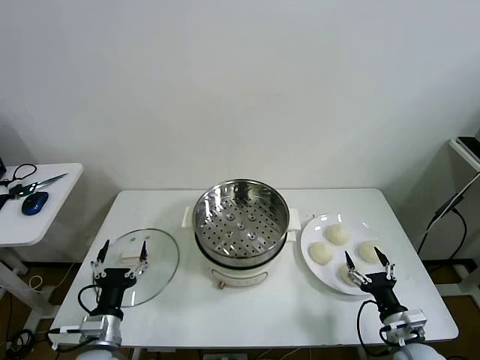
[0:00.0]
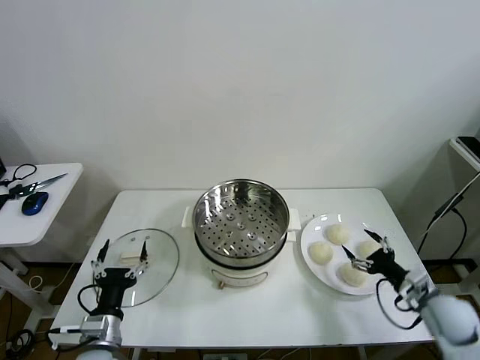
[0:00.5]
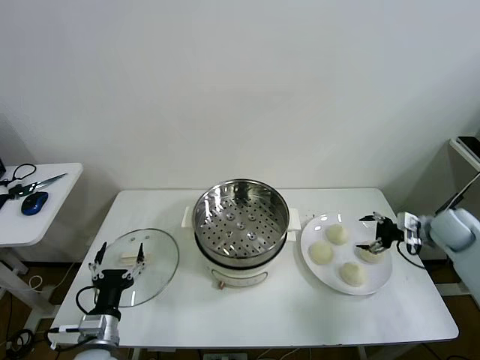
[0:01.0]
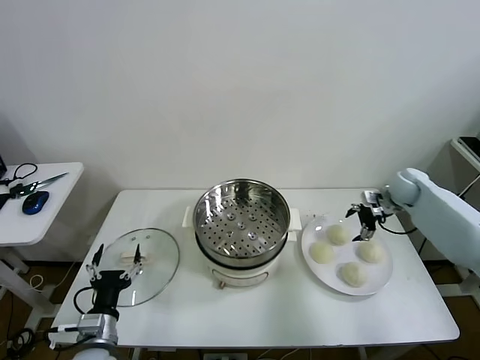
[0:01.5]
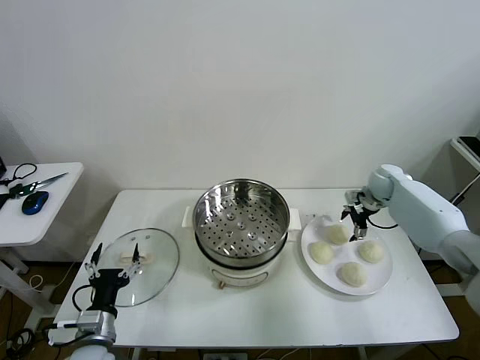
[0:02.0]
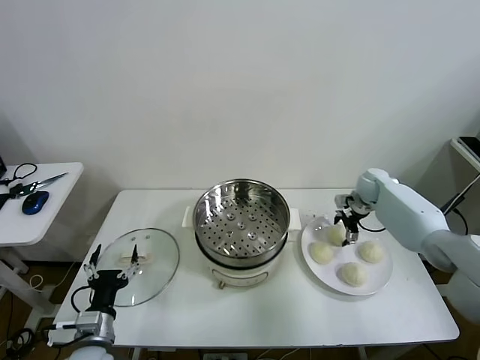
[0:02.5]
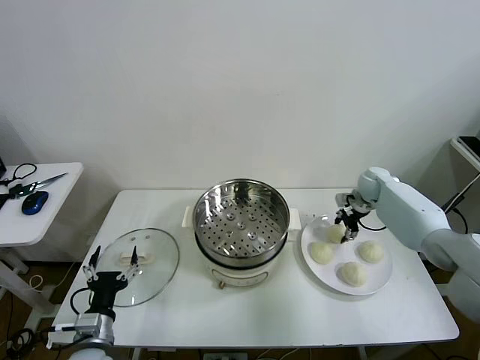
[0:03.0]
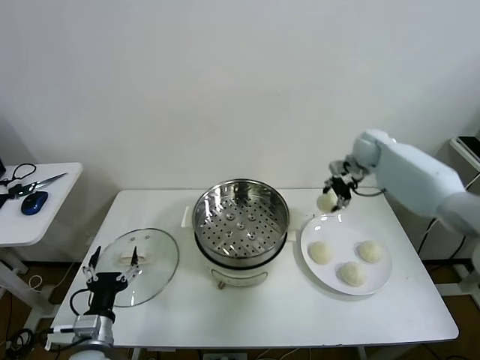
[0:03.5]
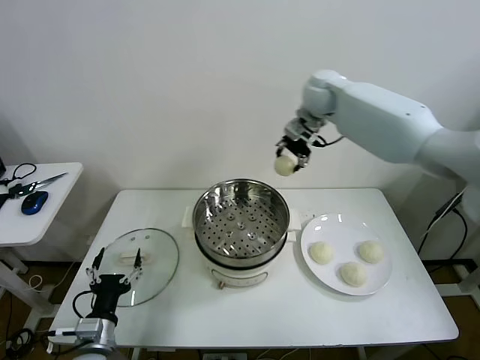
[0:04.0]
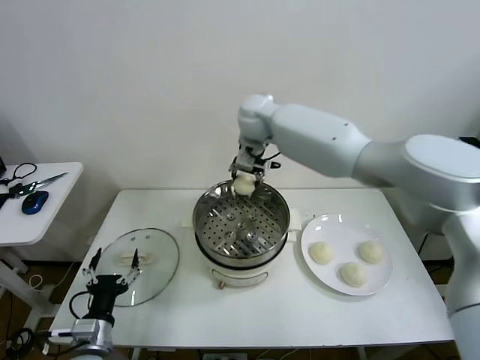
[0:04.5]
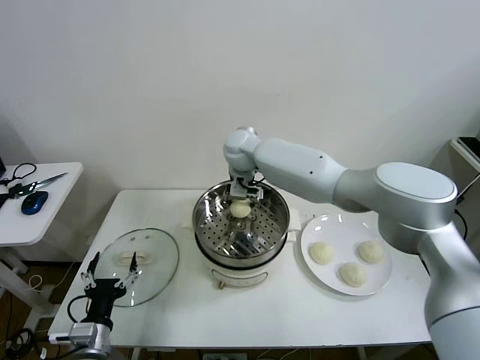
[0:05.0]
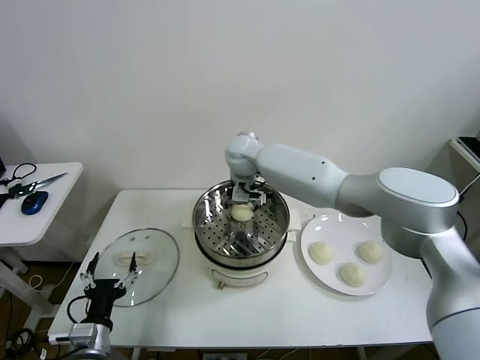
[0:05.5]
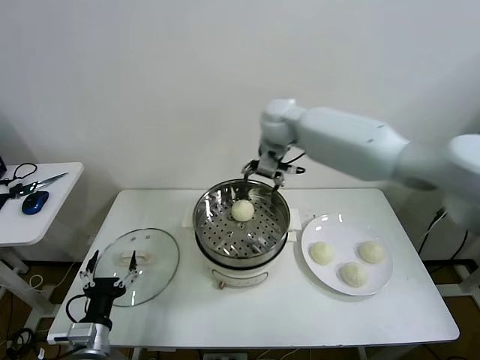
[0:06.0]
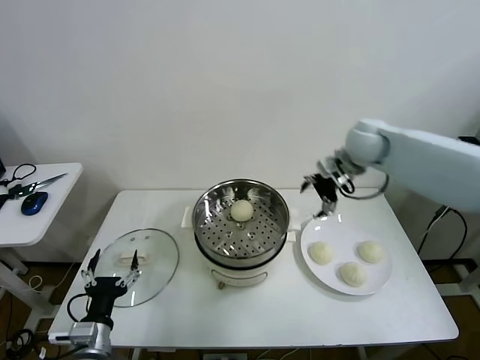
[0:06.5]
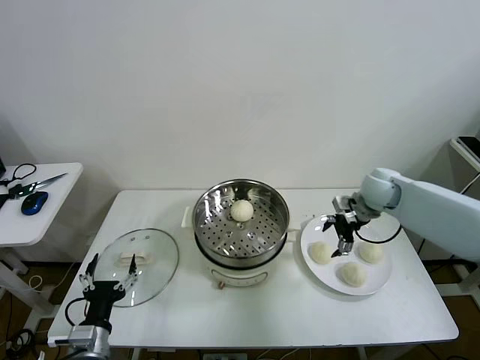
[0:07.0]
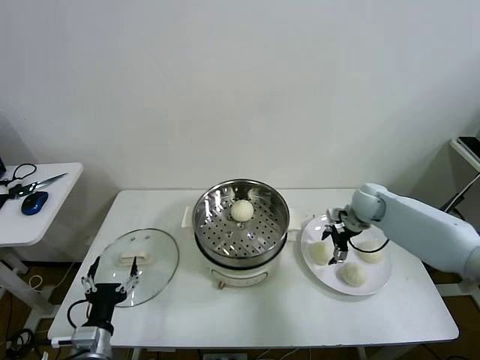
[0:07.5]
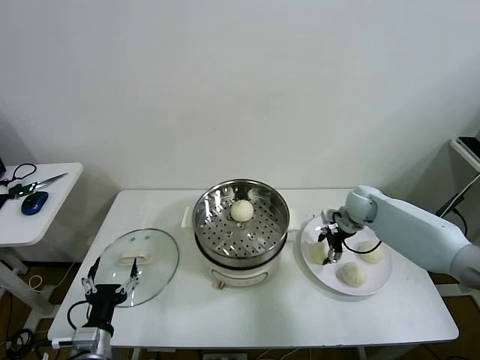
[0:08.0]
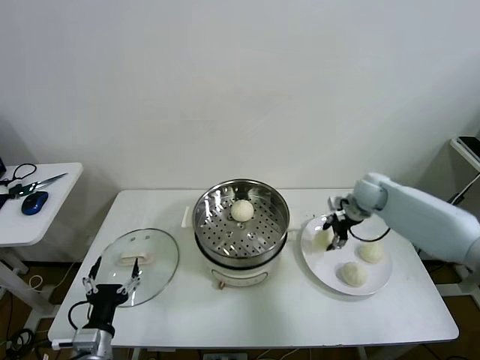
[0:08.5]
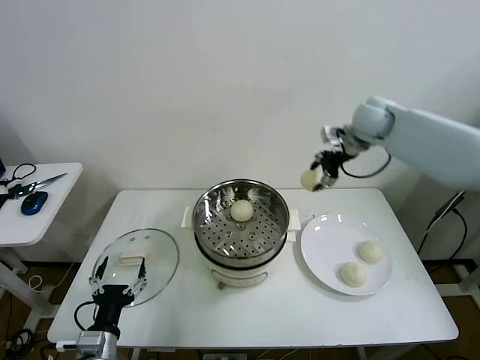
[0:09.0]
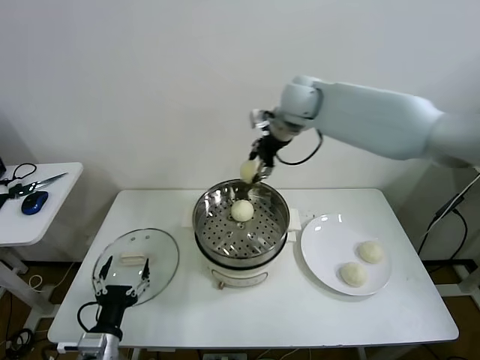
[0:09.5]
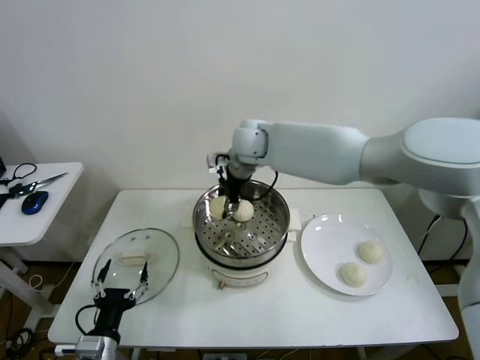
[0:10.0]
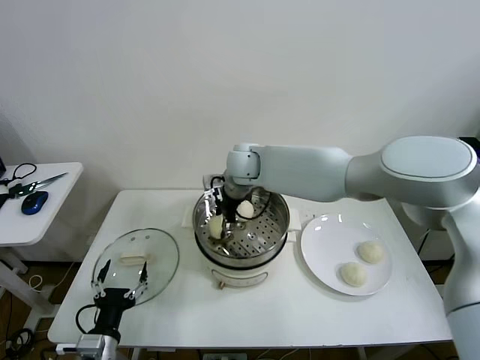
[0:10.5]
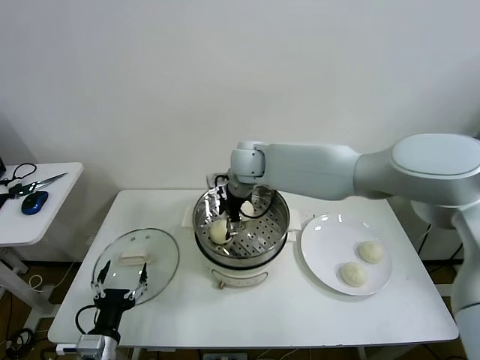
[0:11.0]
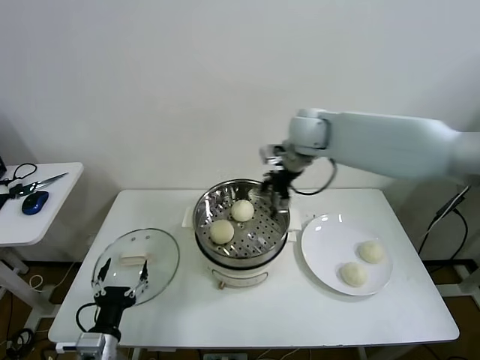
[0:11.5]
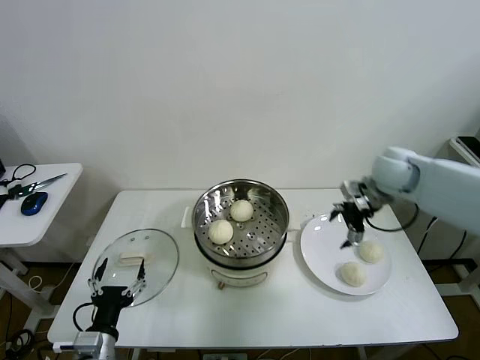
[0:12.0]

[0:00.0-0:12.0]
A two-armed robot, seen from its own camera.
Task of the whole recording: take steamed baozi put them in steamer then cover it.
Step, 0:00.0 to 0:02.5: Grasp the baozi in the plate with right gripper.
Step, 0:03.0 to 0:05.5: Place the baozi on the steamer with right gripper.
Step, 0:06.0 to 0:08.0: Grasp the baozi in the plate with right gripper.
Step, 0:08.5 to 0:11.0: Place the baozi on the steamer with right gripper.
0:02.0 to 0:04.0: The right gripper heads upward and to the left, covering about 35 cm, and closes.
0:04.0 to 0:06.0: The right gripper travels downward and back again, some 15 cm each way, and opens its fingers.
0:06.0 to 0:08.0: The right gripper goes about 30 cm downward and to the right, and closes.
0:08.0 to 0:10.0: The right gripper shifts approximately 35 cm to the left and upward.
0:10.0 to 0:12.0: The right gripper moves to the right, some 35 cm, and opens.

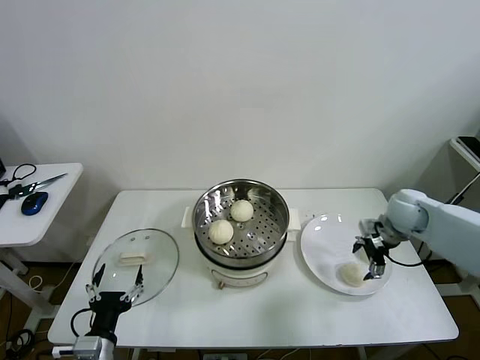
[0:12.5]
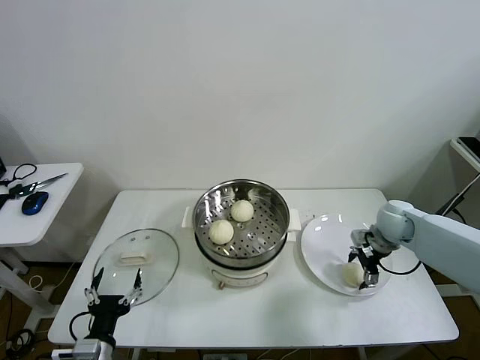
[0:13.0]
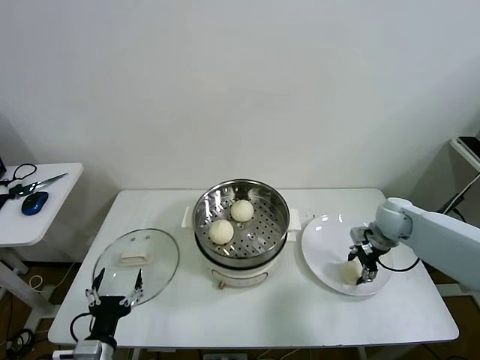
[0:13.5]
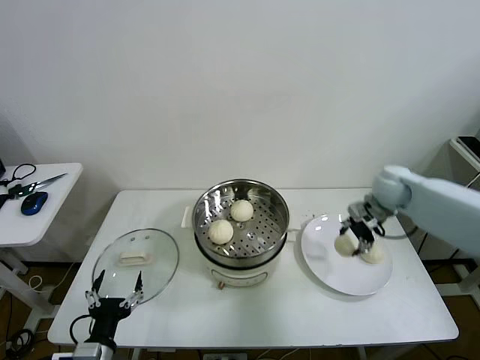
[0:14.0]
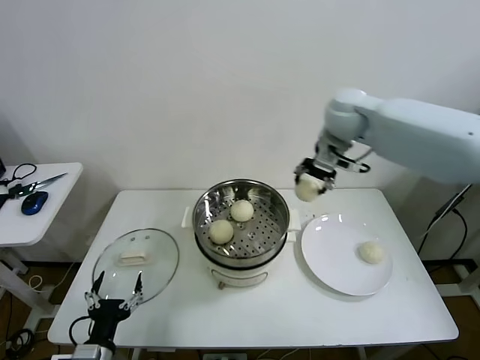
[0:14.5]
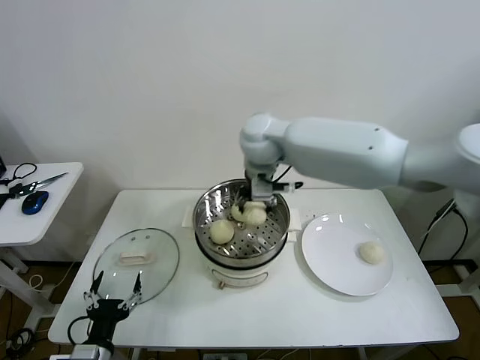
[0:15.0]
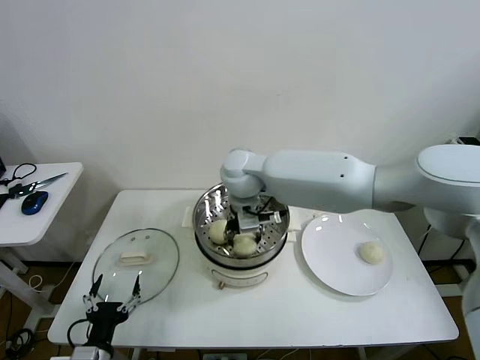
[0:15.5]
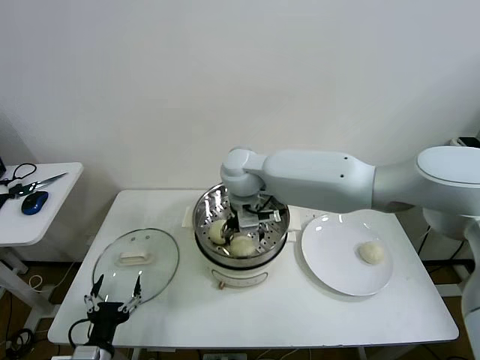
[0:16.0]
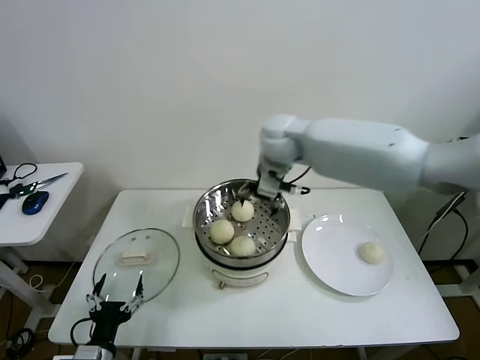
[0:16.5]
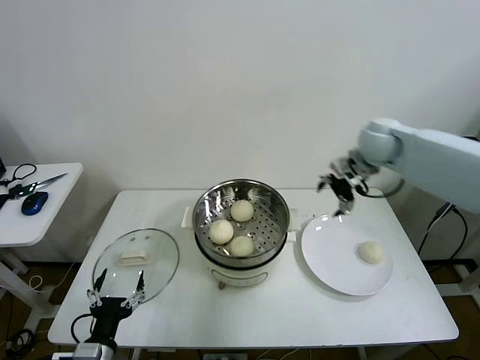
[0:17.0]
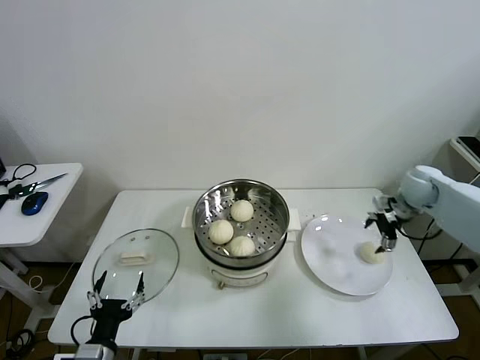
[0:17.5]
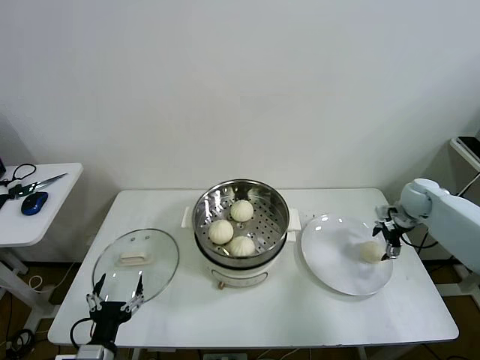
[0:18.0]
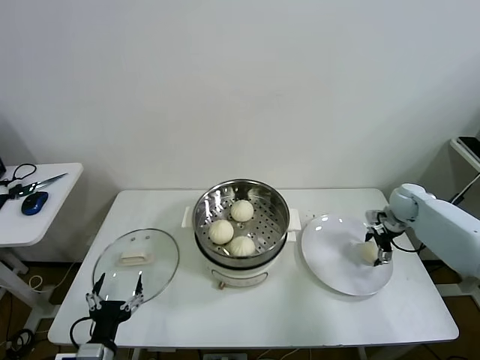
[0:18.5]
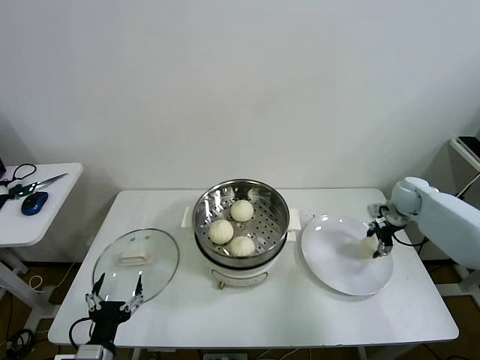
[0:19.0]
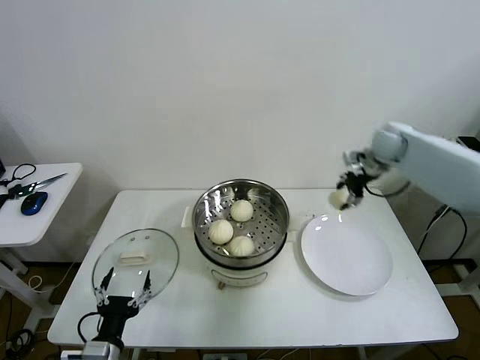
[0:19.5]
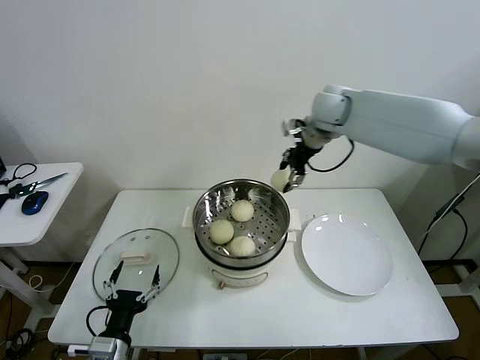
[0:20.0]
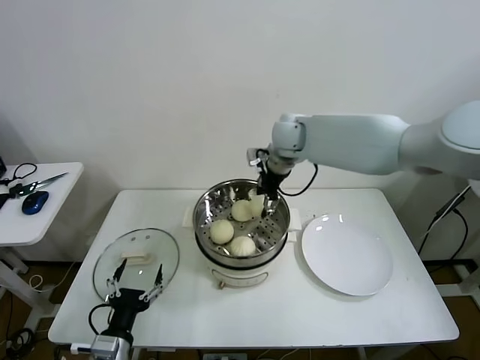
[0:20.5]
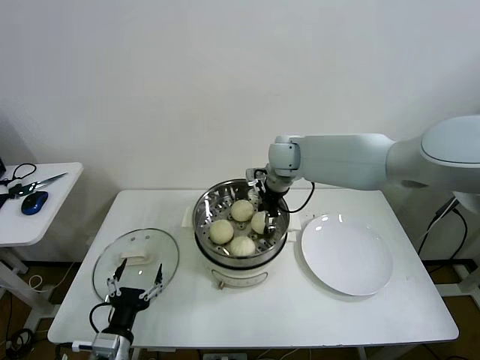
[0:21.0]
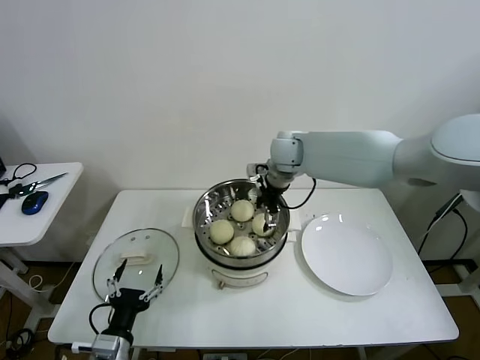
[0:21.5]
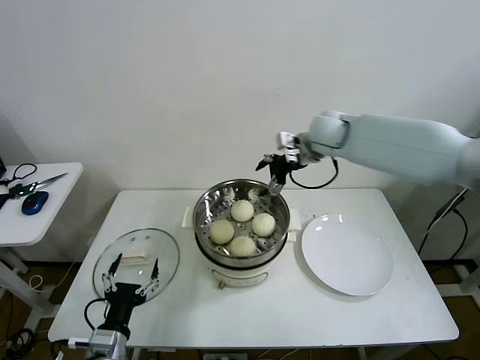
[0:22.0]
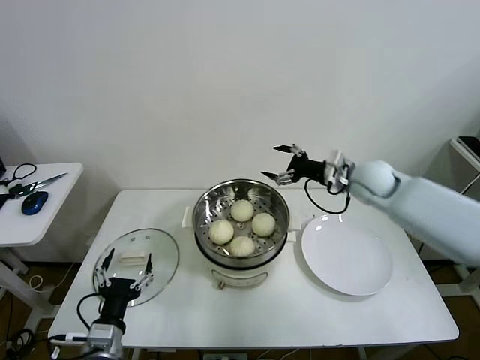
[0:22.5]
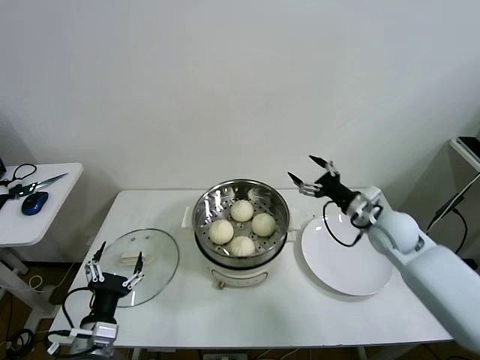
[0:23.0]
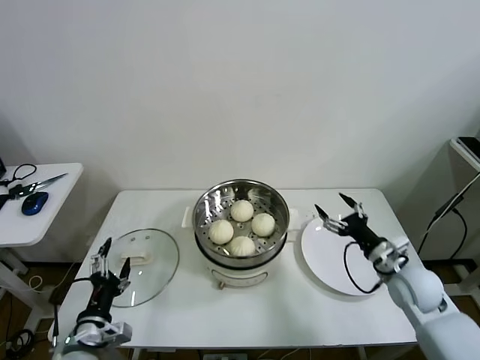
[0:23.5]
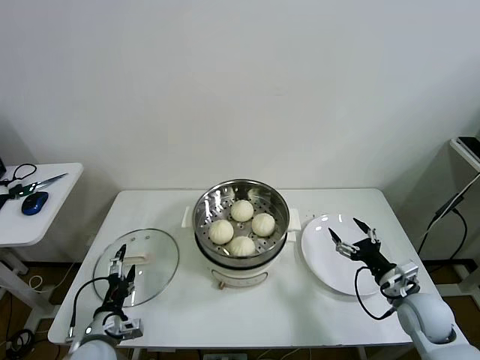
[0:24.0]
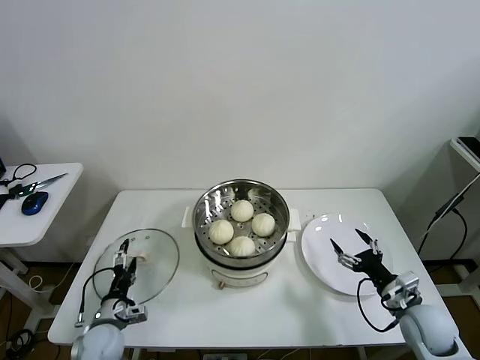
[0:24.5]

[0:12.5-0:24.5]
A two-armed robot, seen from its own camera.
Task of the whole recording: take steamed baozi put them in steamer then cover it.
Step, 0:13.5 to 0:16.0: Place the baozi on the steamer with right gripper.
Step, 0:16.5 to 0:18.5: Grasp the baozi in the plate with right gripper.
Step, 0:19.0 to 0:21.0: Place the baozi on the steamer with right gripper.
0:12.5 to 0:14.5: The right gripper heads upward and to the left, covering approximately 30 cm, and closes up.
0:14.5 to 0:16.5: The right gripper is displaced to the left by roughly 10 cm, and opens its fingers.
0:16.5 to 0:18.5: The right gripper travels to the right and downward by roughly 40 cm.
0:18.5 to 0:20.5: The right gripper travels to the left and upward by about 40 cm, and closes its fingers.
0:20.5 to 0:22.5: The right gripper is displaced to the right, downward and backward by some 20 cm, and opens.
0:22.5 to 0:24.5: The left gripper is displaced downward, forward and to the left by some 15 cm. Meanwhile the right gripper shifts roughly 30 cm backward and downward.

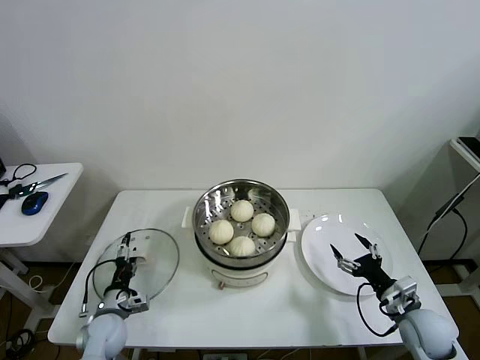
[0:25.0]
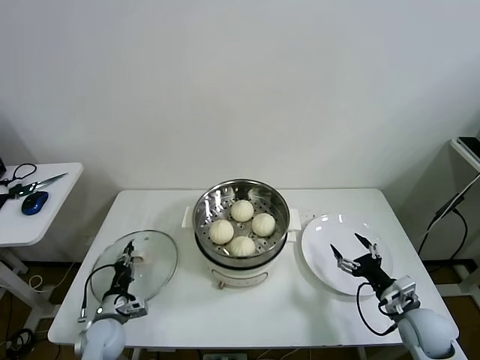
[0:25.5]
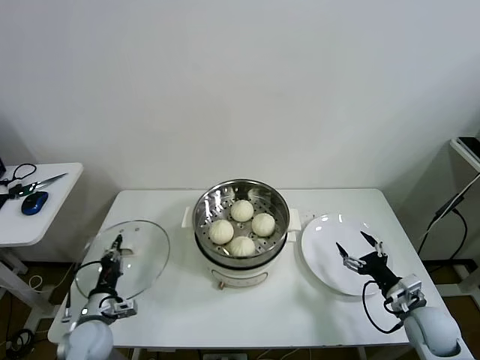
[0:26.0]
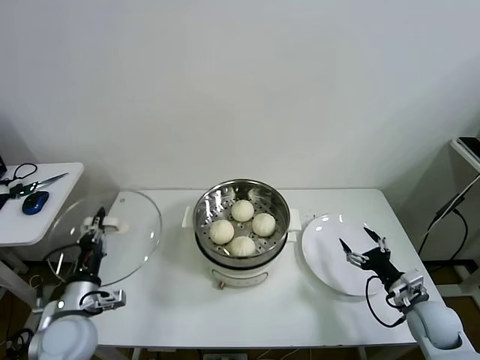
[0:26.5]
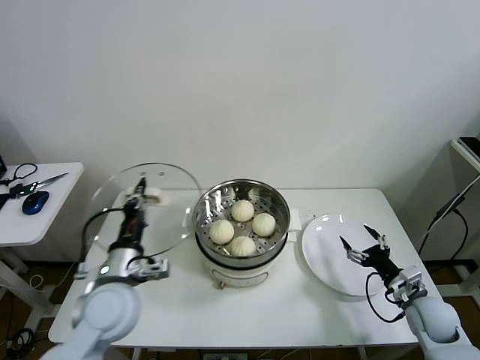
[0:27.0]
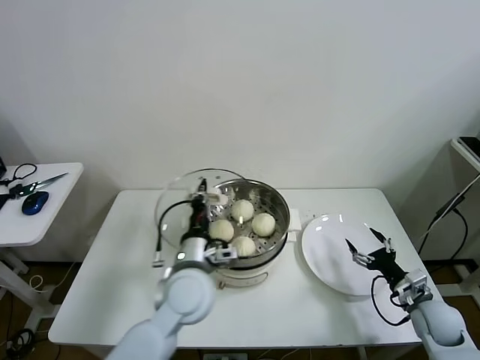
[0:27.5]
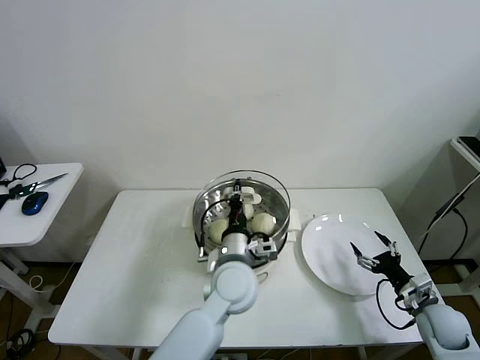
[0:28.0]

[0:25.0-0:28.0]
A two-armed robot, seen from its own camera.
Task of the whole recording: take steamed baozi put them in steamer then cover it.
0:25.0 to 0:26.5: The left gripper shifts about 15 cm upward, and closes.
0:26.5 to 0:28.0: The left gripper is displaced to the right by approximately 30 cm.
